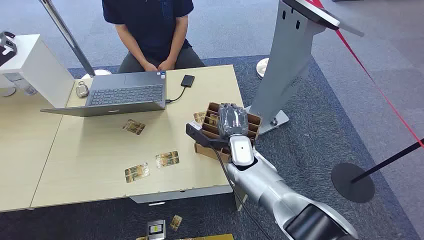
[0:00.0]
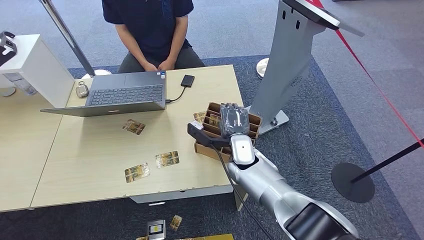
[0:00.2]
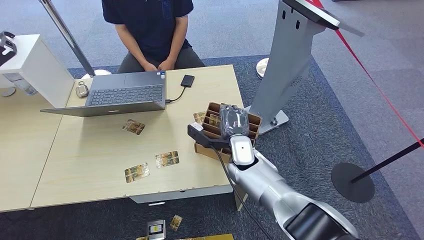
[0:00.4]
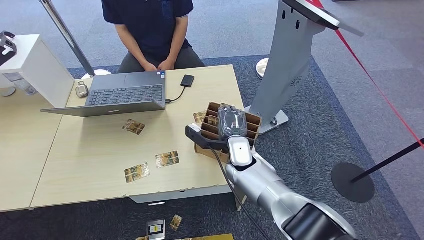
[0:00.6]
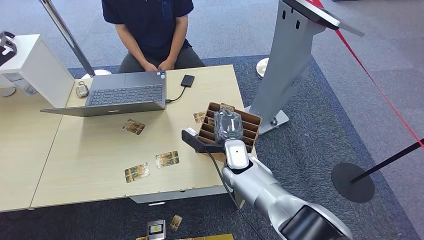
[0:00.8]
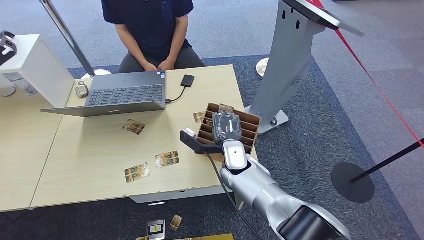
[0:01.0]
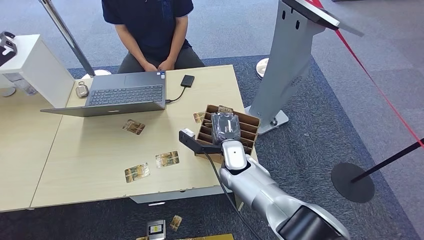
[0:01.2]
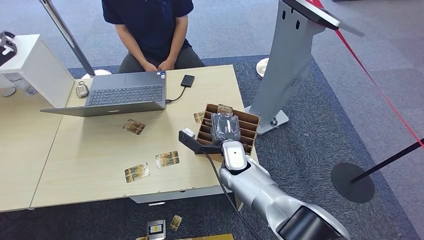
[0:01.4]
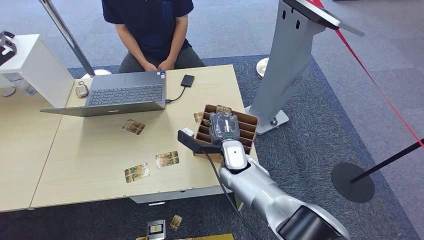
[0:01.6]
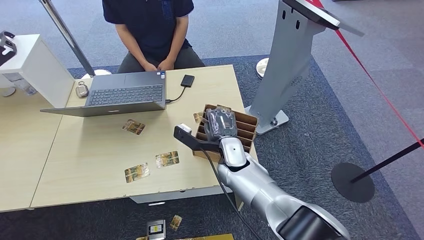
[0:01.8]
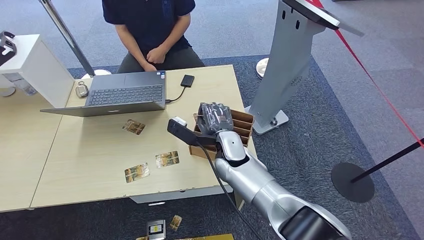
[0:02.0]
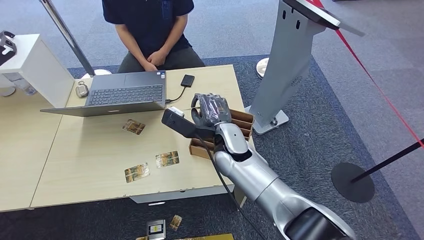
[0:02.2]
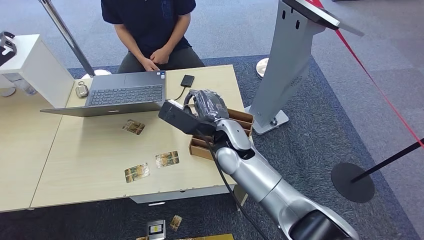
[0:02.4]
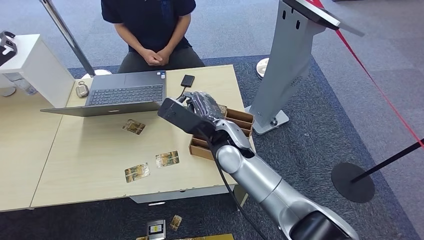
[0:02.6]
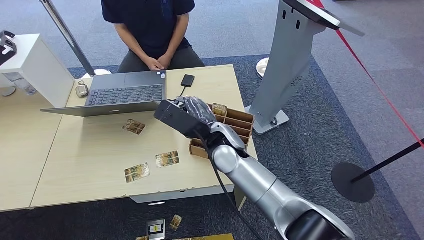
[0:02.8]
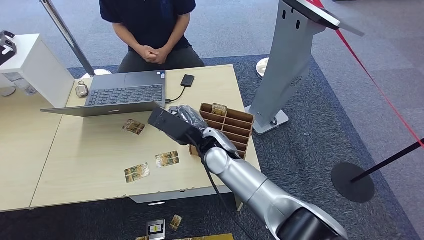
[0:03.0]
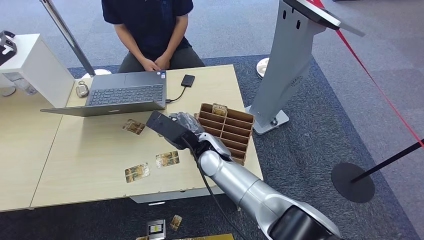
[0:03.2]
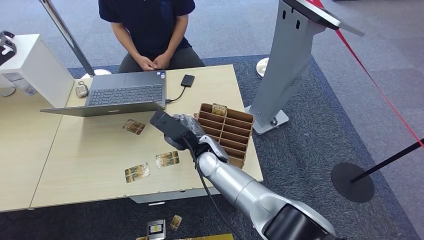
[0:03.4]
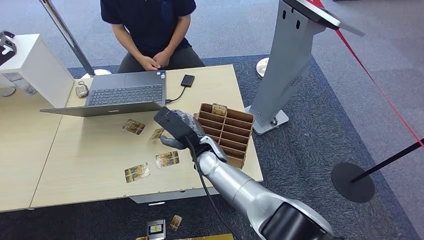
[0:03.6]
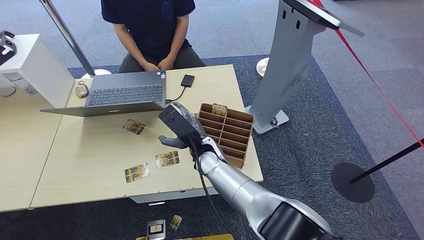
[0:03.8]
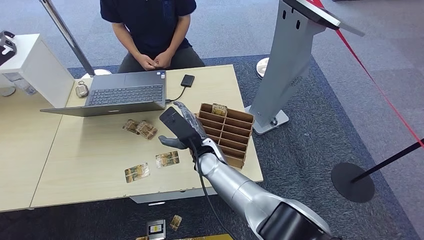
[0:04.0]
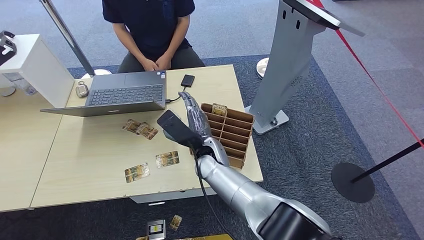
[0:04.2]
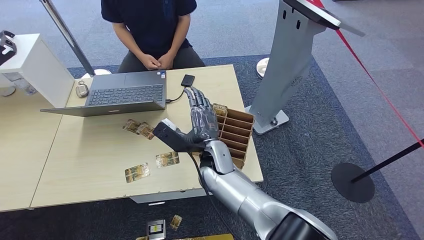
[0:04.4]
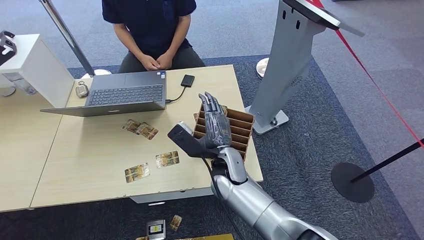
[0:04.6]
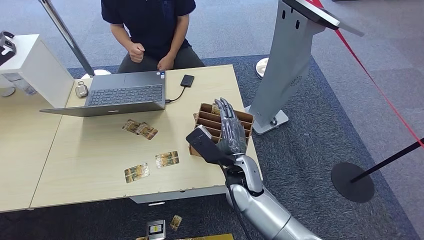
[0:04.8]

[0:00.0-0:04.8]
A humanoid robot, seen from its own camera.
Step, 0:00.0 to 0:02.8: Pick up the key card from the card box.
Step, 0:03.2 to 0:04.8: Hand the key card to the target.
0:01.6 to 0:03.2: The right hand travels upward and to the left by some 10 cm.
0:03.2 to 0:04.8: The right hand shifts roughly 10 cm to the right and backward.

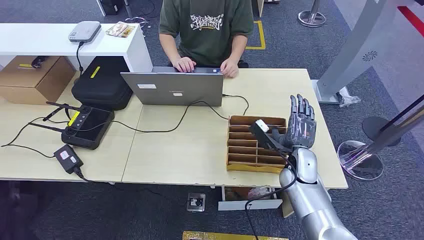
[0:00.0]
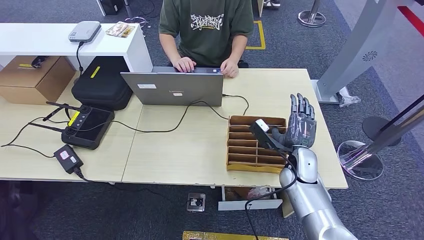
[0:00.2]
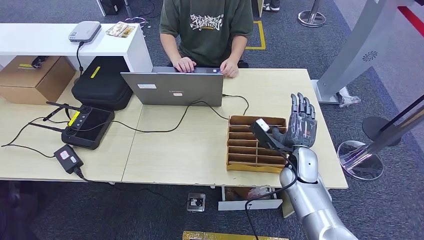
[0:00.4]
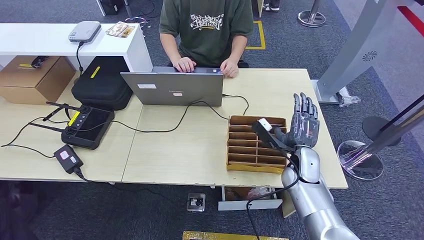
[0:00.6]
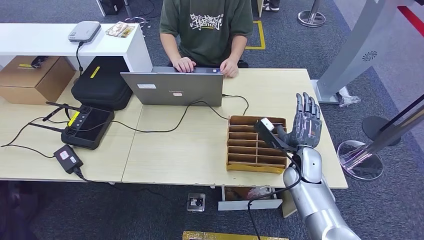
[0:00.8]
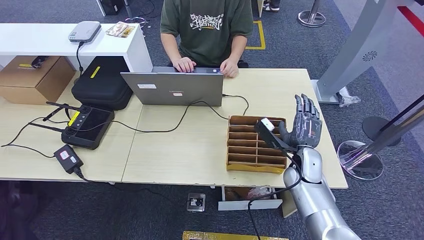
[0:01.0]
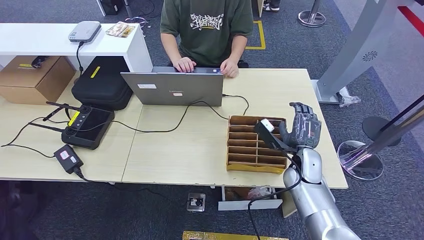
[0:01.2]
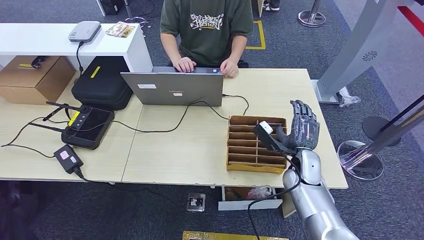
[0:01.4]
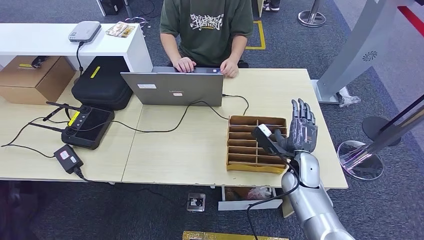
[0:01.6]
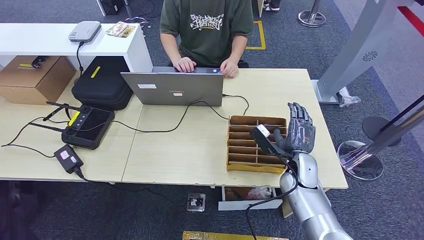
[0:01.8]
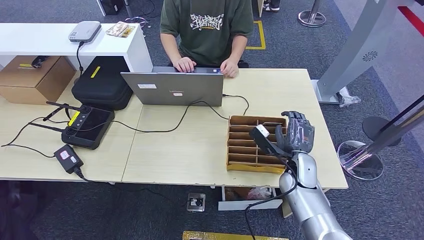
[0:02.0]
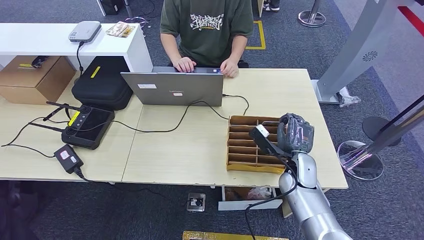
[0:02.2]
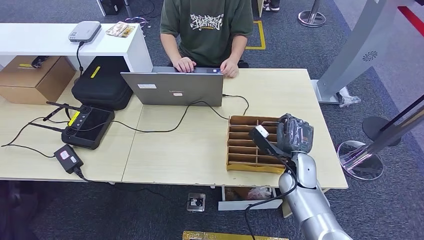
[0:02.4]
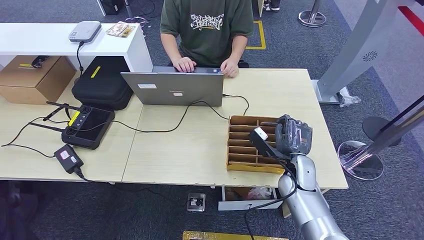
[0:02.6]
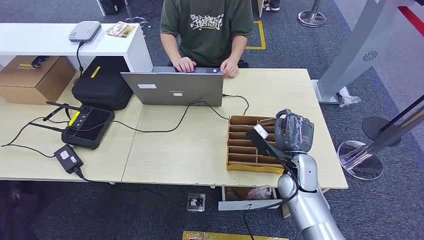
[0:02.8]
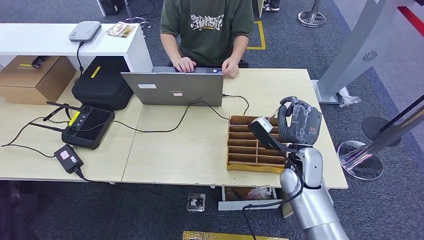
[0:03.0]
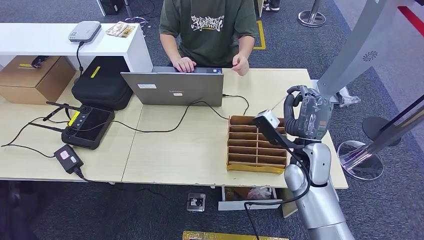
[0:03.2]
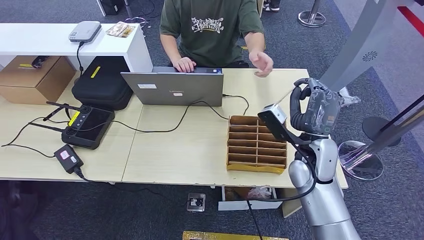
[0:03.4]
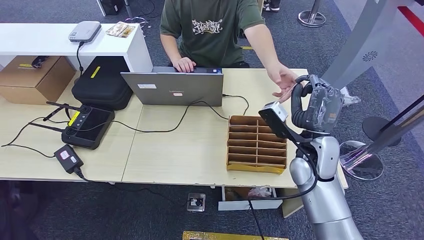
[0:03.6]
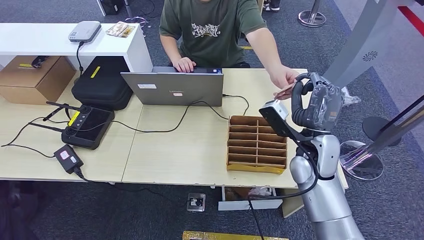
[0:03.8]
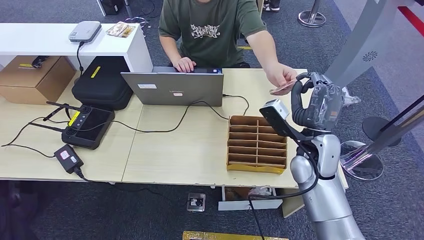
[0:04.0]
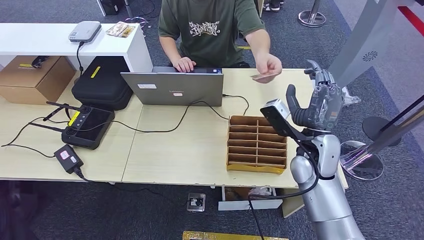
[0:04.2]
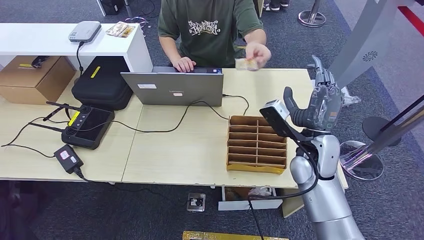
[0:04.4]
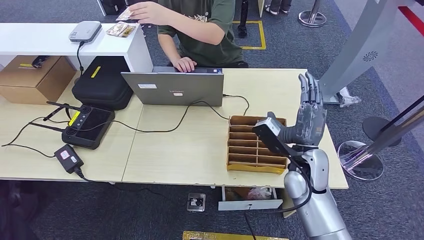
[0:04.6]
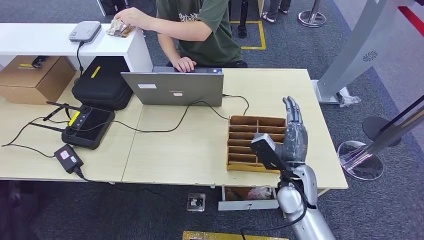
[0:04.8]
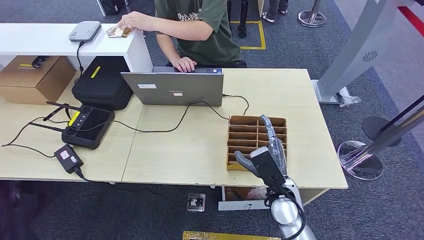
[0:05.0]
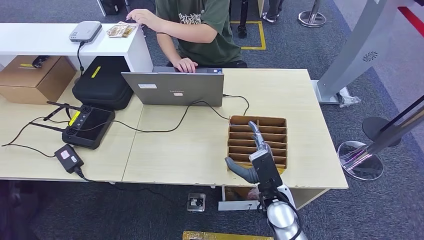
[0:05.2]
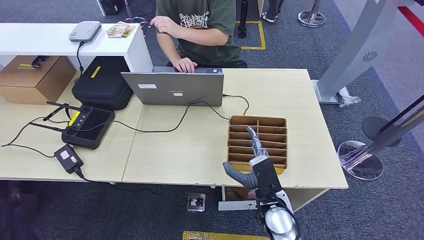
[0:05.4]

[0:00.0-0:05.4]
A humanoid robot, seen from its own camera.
Step, 0:00.0 to 0:03.4: Pick up the key card from the card box.
Step, 0:03.6 to 0:05.4: Hand the key card to the target.
0:01.4 to 0:02.8: The hands make only small movements.
0:02.8 to 0:04.0: The right hand is displaced upward by roughly 10 cm.
0:04.0 to 0:05.4: The right hand goes some 20 cm downward, backward and to the left.
